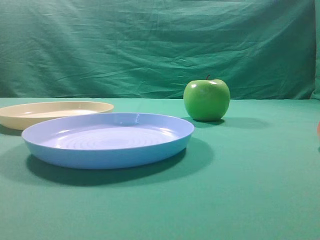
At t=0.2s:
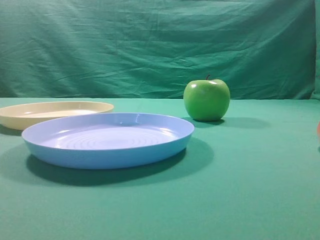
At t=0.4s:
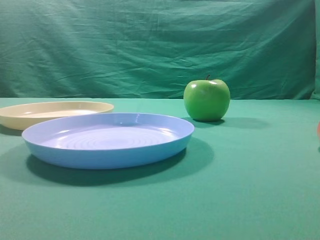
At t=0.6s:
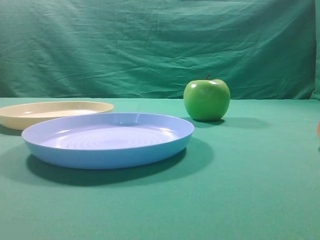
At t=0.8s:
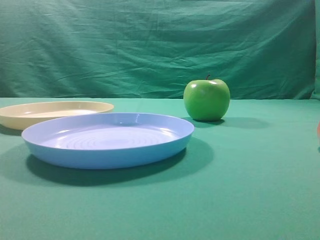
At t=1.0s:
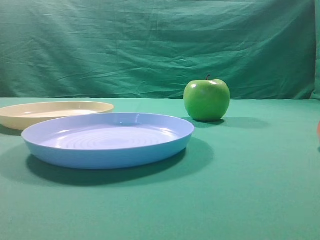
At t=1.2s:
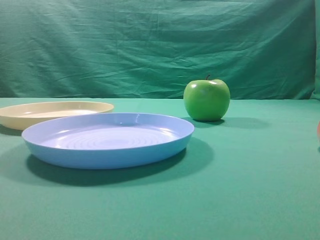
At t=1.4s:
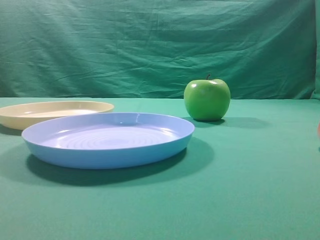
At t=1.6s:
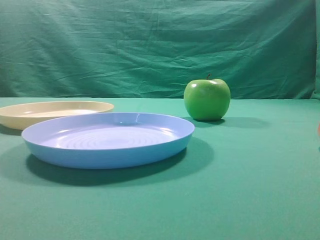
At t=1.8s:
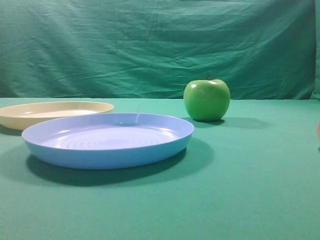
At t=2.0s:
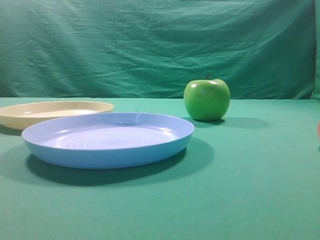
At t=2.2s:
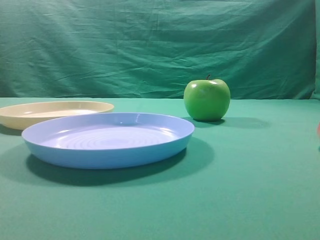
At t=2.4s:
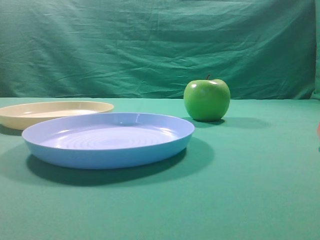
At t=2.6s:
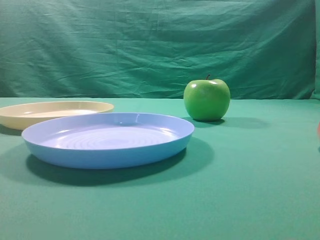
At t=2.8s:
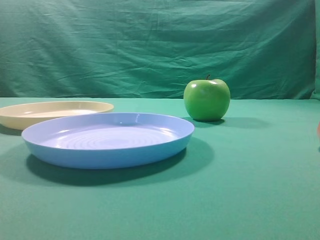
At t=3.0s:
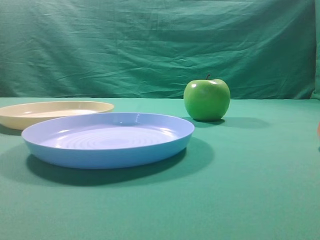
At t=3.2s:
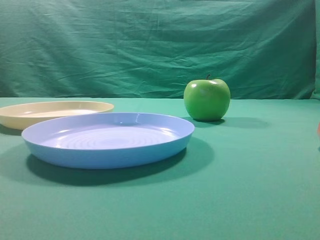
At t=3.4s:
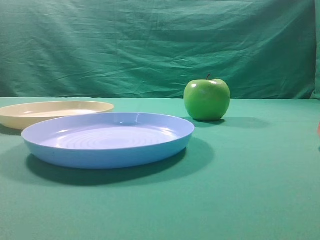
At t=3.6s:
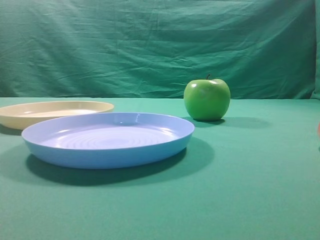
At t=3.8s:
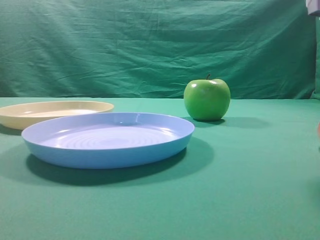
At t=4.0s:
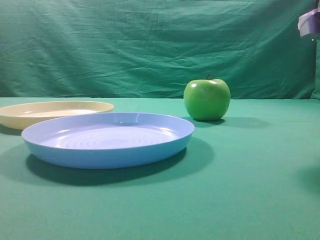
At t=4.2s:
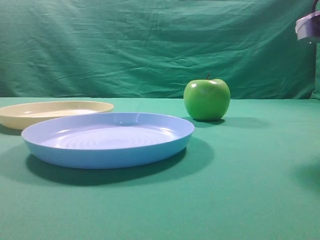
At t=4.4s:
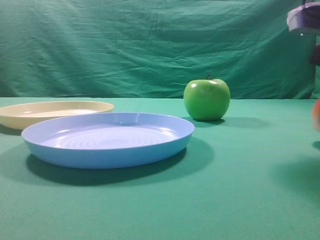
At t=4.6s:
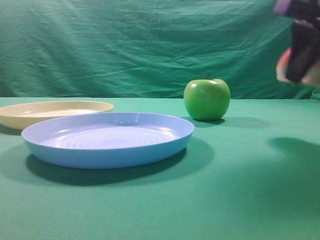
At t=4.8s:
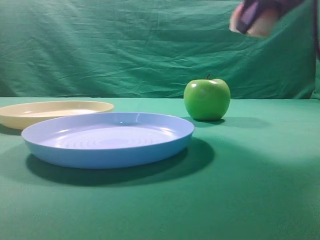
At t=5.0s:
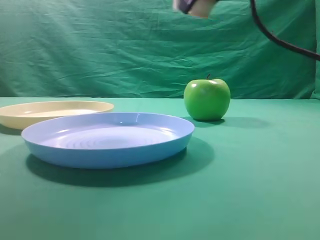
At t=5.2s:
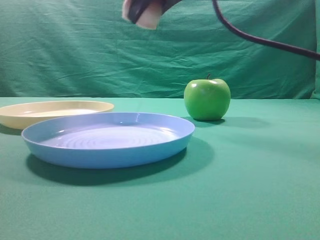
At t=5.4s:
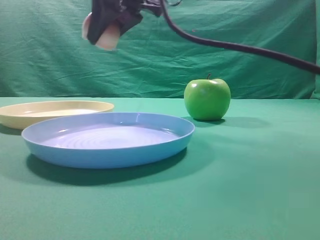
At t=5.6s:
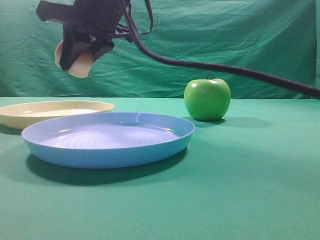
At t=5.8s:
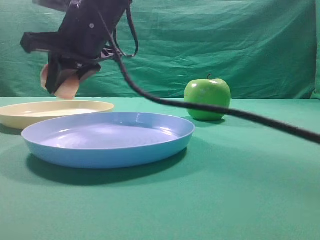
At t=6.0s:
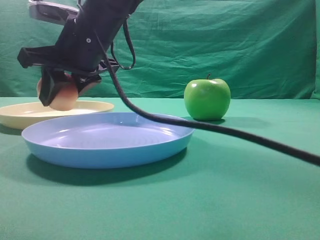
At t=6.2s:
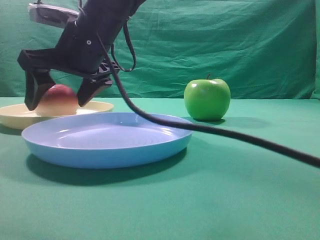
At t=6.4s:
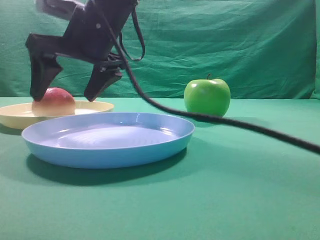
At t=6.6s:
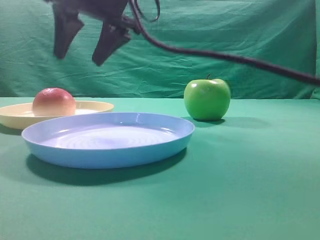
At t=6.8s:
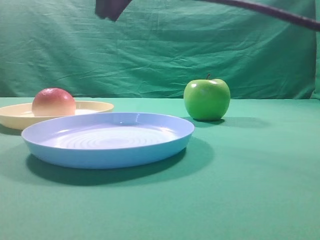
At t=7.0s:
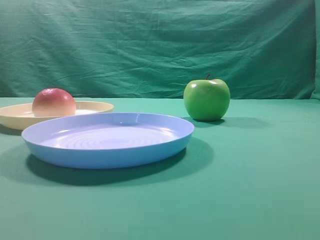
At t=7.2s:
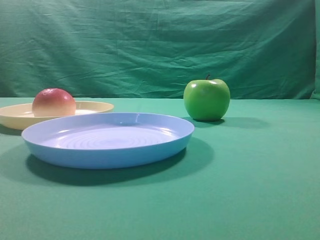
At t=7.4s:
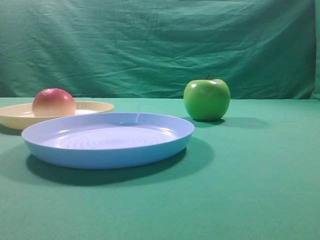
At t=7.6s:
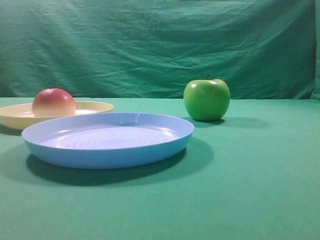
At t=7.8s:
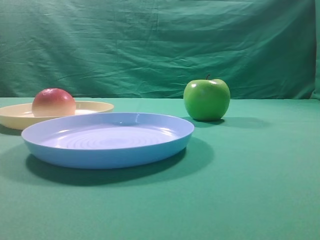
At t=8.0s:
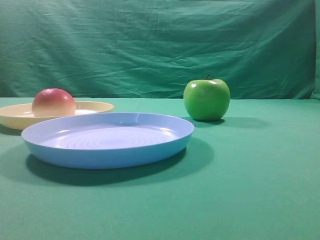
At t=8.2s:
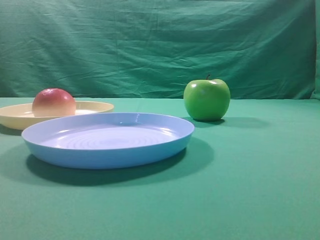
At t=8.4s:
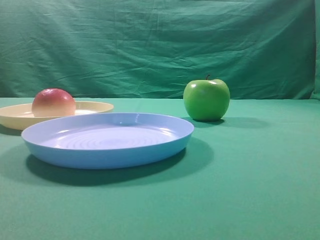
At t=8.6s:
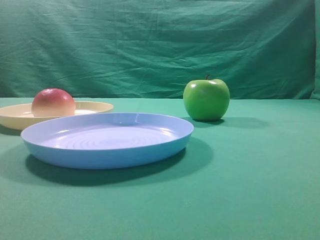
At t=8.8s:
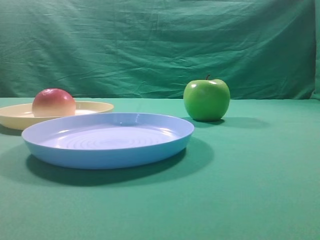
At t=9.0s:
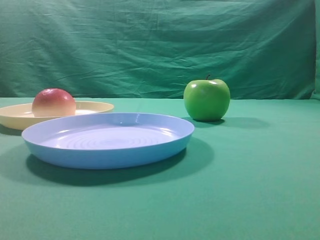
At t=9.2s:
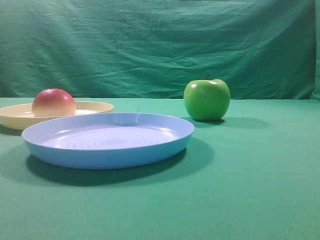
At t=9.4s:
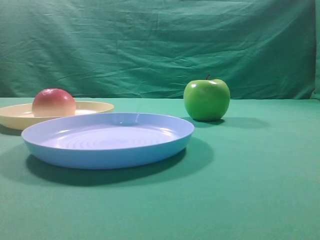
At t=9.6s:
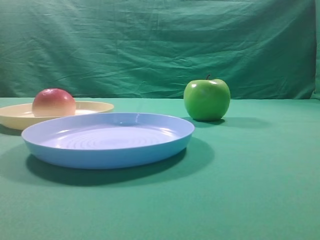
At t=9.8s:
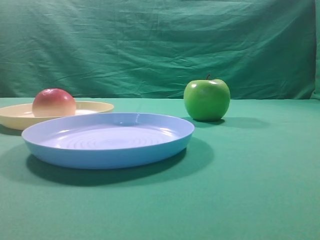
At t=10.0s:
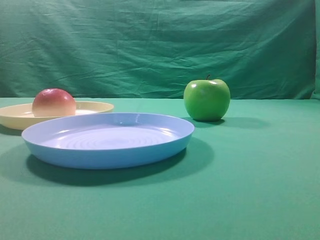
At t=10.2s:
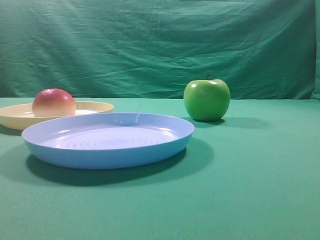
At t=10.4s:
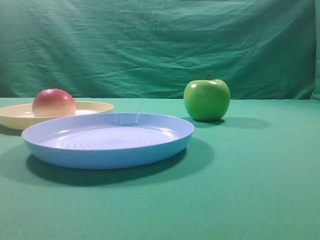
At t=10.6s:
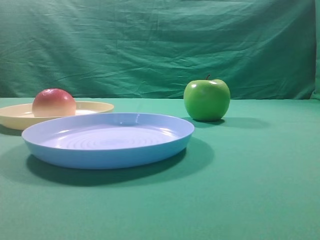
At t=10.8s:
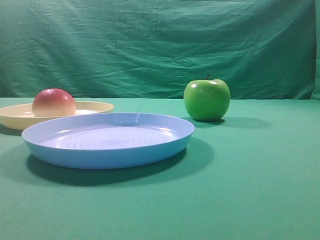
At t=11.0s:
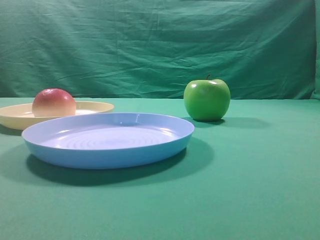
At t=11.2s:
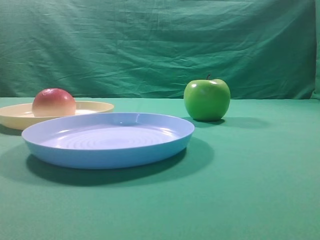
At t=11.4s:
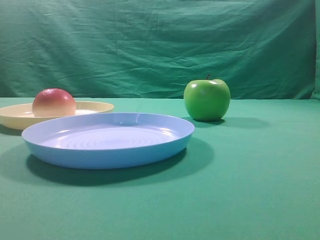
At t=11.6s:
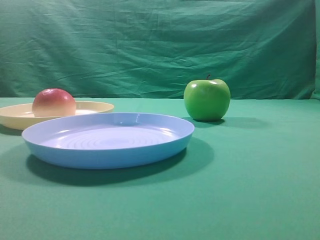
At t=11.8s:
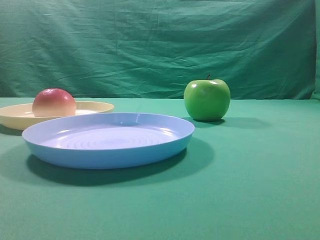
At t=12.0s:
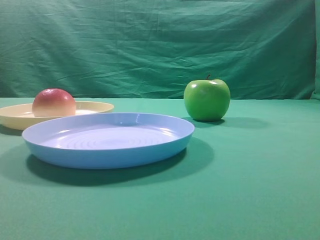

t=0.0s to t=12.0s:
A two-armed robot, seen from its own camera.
Step, t=4.6s to t=6.4s: Place the picked object on the yellow plate.

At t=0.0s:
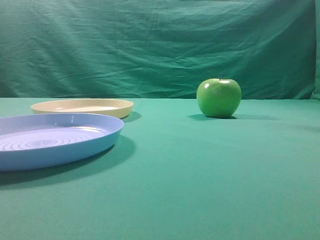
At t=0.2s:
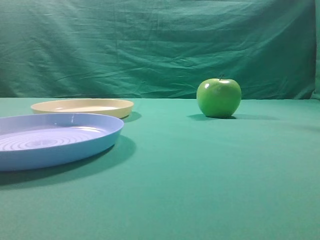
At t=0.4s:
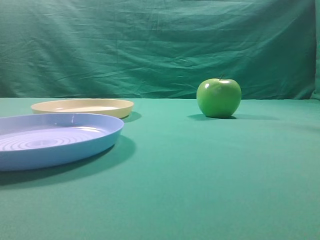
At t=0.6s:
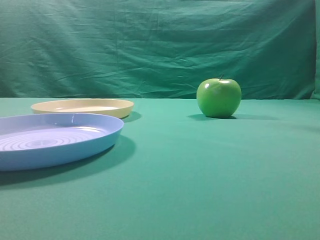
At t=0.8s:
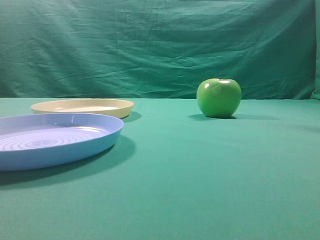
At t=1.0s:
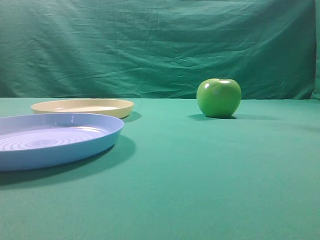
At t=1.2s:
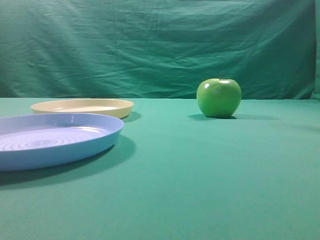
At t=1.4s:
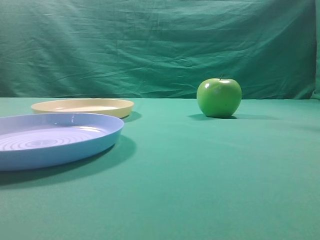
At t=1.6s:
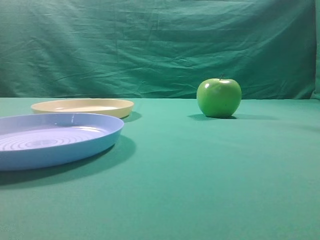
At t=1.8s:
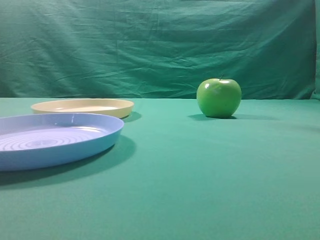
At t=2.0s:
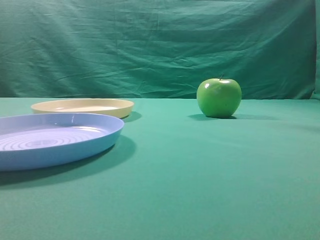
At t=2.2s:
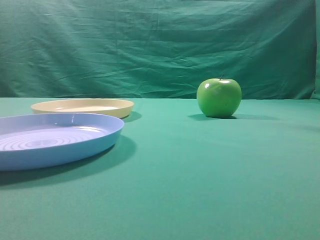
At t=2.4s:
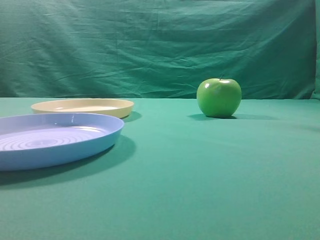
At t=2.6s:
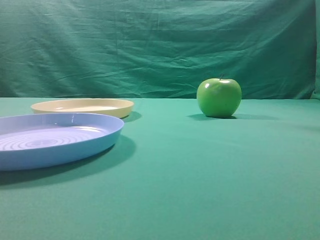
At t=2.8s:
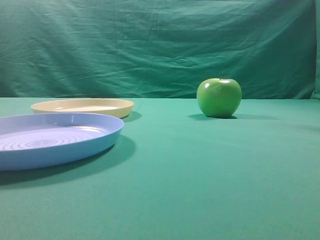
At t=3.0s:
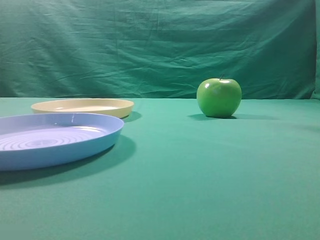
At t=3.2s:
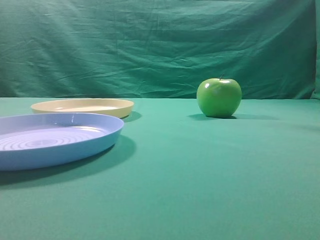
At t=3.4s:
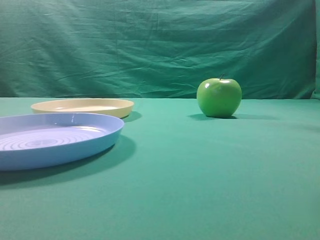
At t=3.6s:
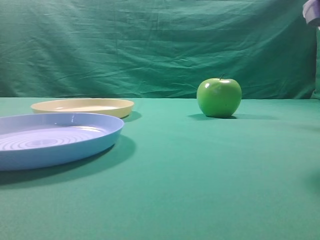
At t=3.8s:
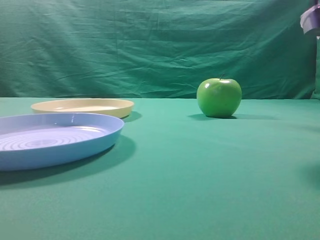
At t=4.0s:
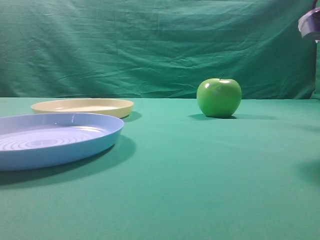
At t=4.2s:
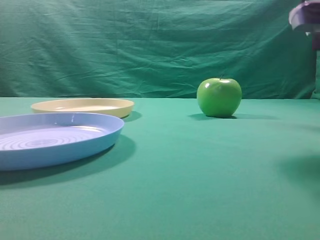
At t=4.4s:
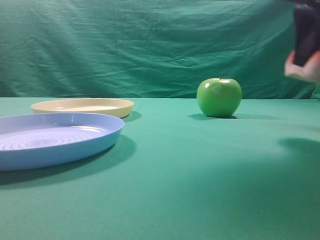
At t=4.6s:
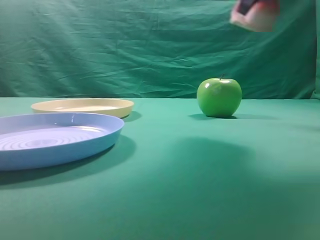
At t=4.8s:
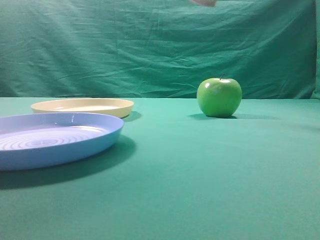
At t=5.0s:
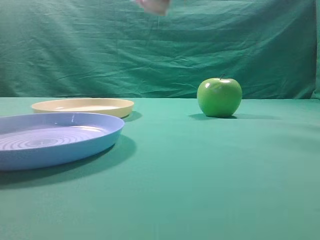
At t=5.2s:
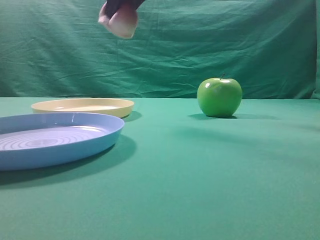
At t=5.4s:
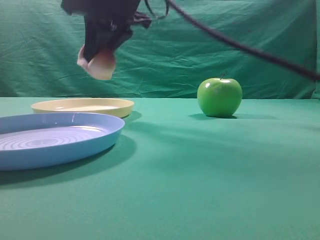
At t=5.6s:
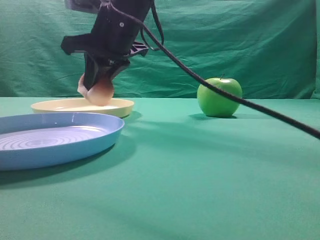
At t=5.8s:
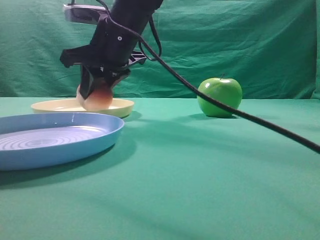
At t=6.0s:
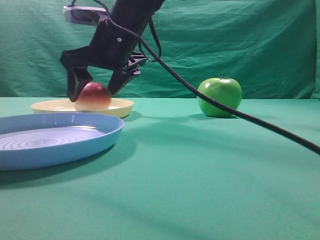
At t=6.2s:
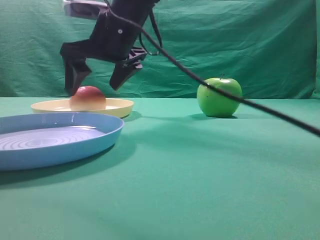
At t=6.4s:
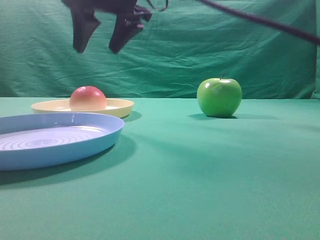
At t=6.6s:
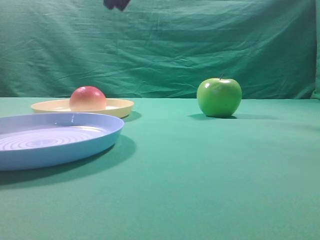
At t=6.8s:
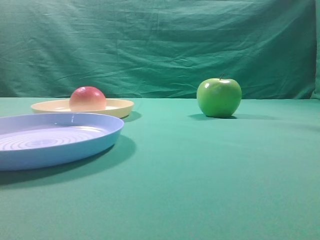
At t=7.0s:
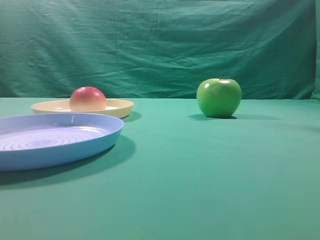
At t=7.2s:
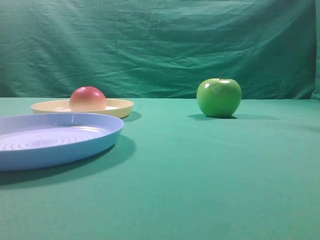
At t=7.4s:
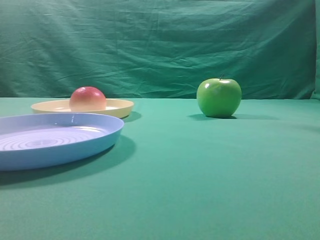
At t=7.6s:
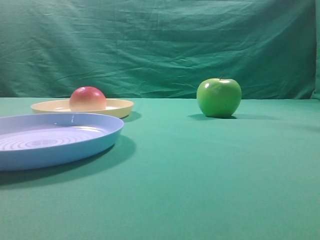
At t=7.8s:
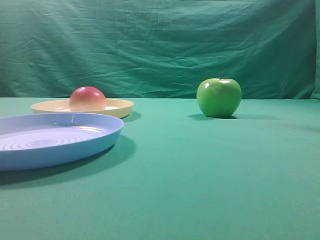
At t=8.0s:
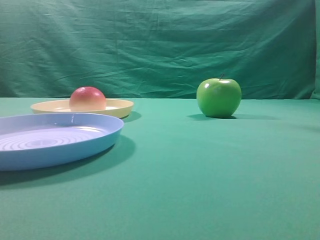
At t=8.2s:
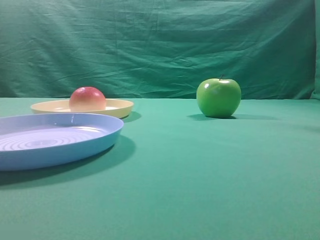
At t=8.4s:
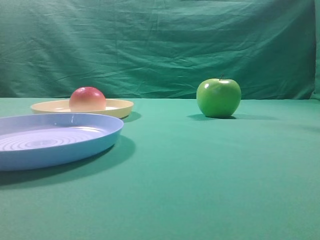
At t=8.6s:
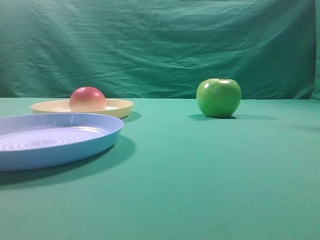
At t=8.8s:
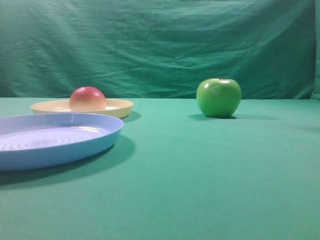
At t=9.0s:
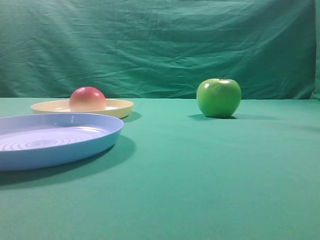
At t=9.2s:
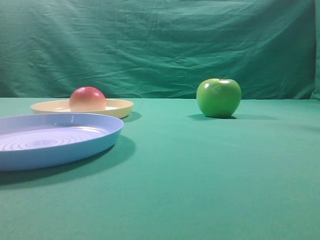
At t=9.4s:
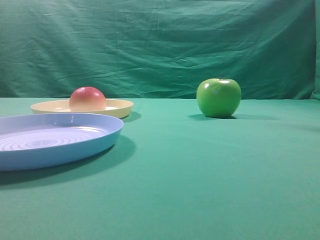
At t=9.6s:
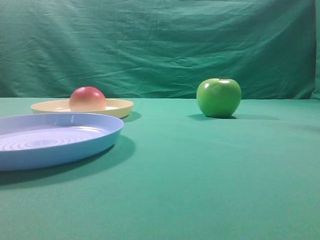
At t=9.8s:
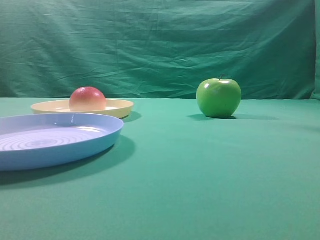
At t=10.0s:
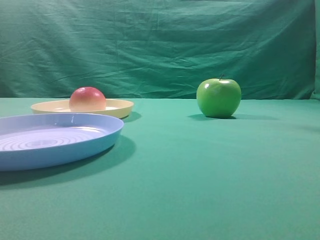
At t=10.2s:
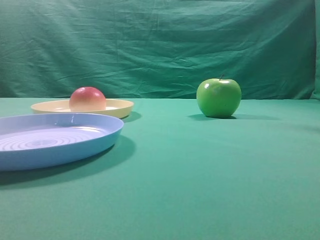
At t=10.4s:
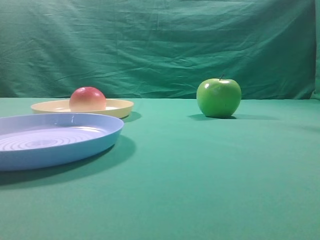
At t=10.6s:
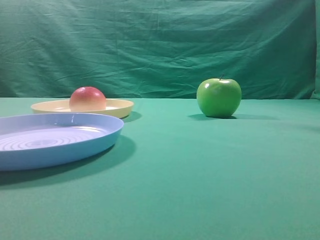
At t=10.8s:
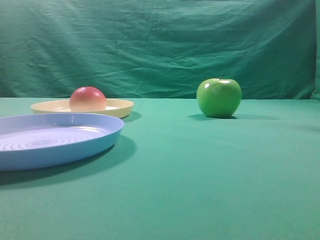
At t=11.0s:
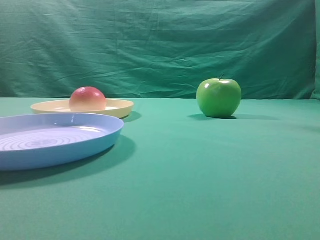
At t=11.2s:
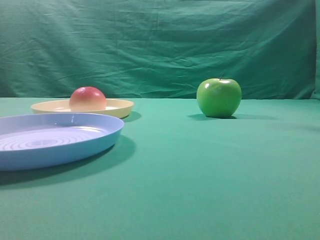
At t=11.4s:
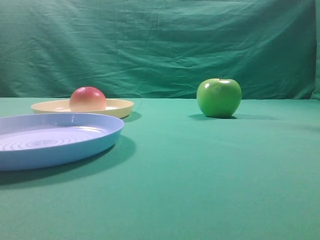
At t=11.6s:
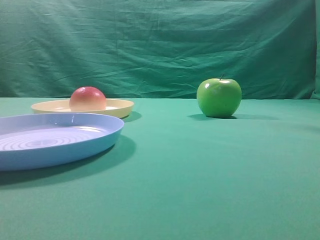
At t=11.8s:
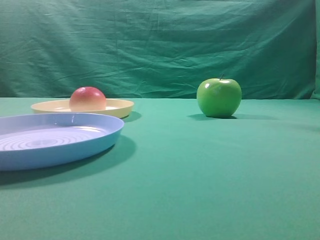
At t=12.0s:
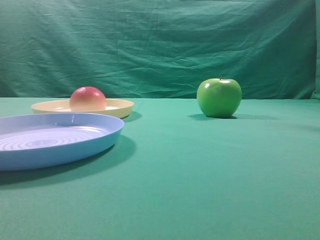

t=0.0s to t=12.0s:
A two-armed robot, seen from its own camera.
Step, t=4.6s to t=6.2s: Place the picked object on the yellow plate.
